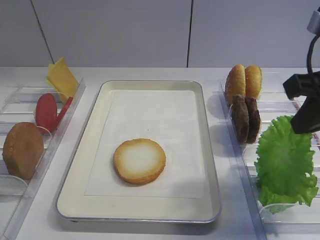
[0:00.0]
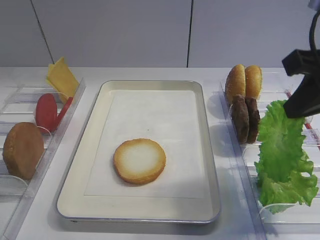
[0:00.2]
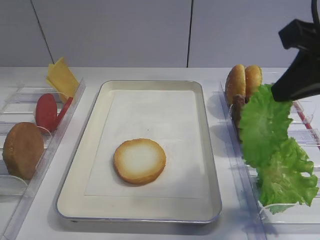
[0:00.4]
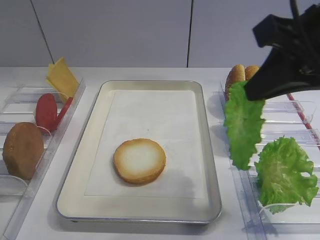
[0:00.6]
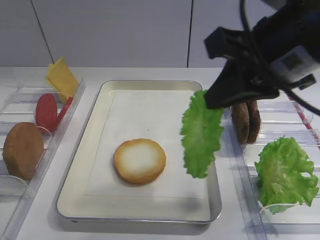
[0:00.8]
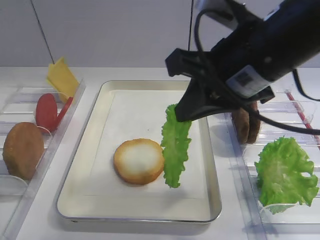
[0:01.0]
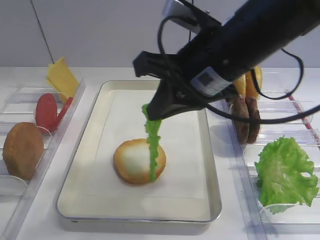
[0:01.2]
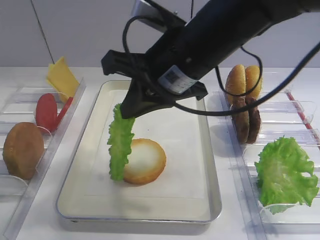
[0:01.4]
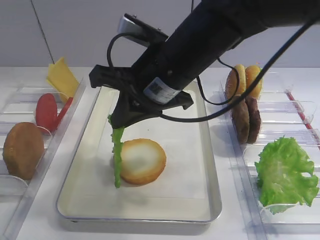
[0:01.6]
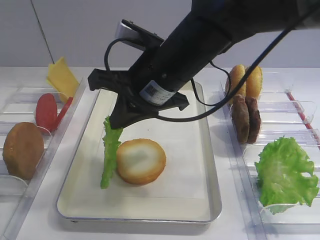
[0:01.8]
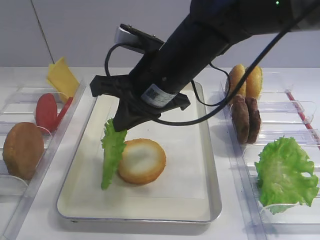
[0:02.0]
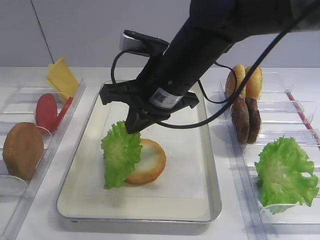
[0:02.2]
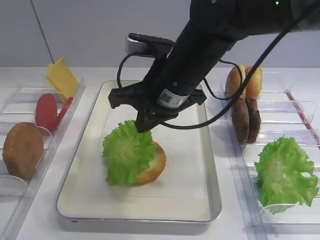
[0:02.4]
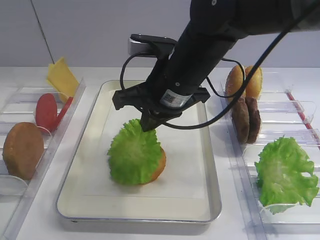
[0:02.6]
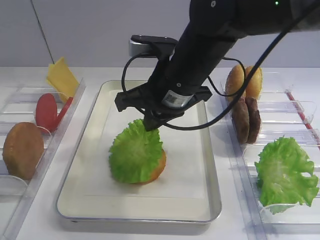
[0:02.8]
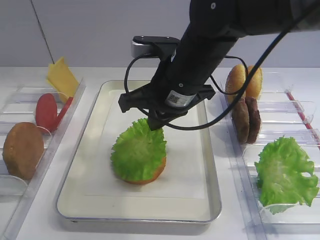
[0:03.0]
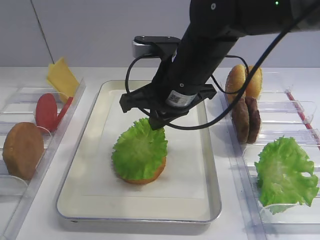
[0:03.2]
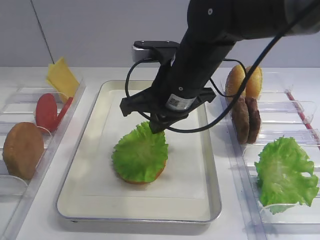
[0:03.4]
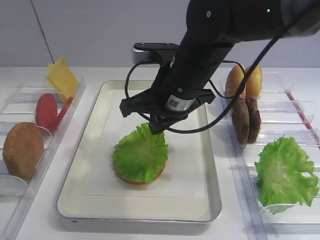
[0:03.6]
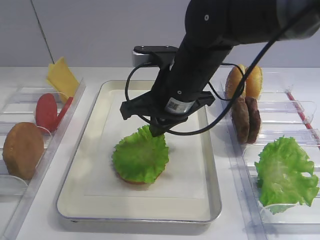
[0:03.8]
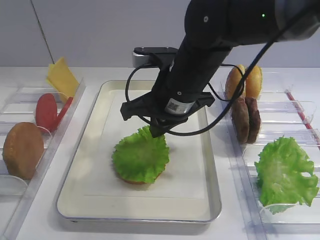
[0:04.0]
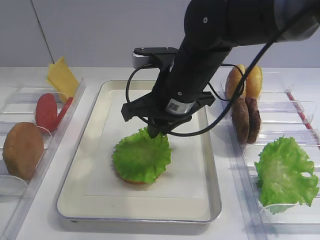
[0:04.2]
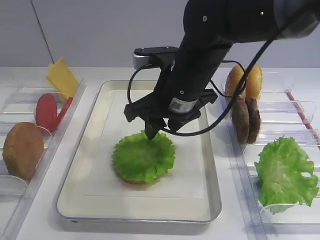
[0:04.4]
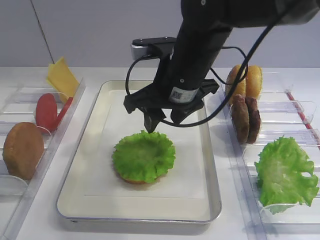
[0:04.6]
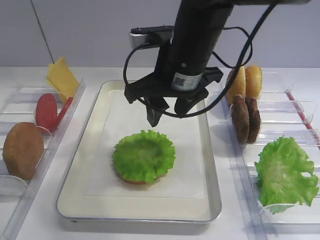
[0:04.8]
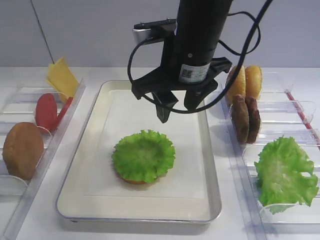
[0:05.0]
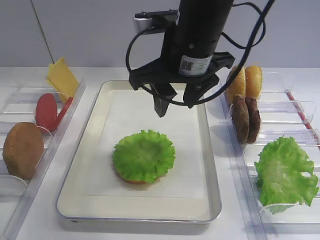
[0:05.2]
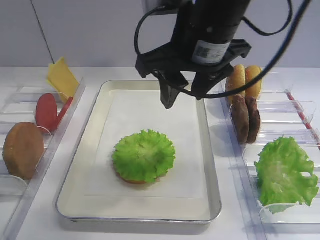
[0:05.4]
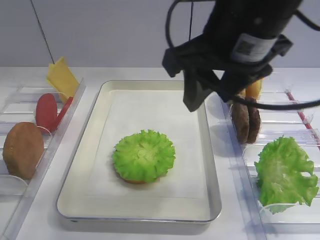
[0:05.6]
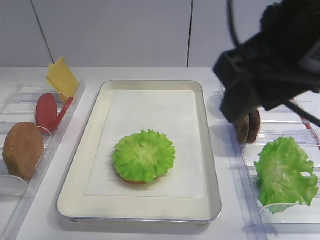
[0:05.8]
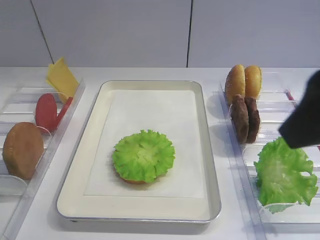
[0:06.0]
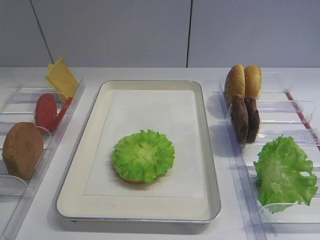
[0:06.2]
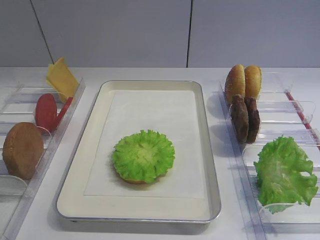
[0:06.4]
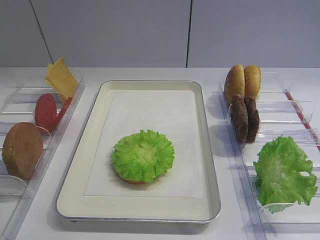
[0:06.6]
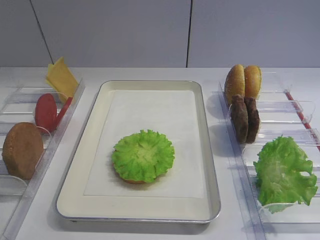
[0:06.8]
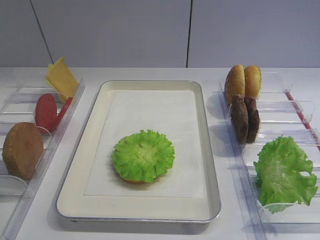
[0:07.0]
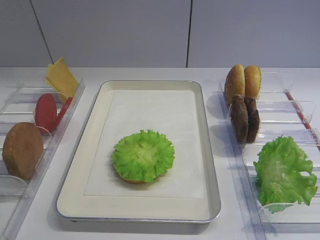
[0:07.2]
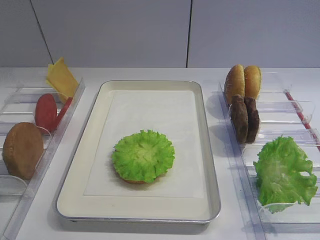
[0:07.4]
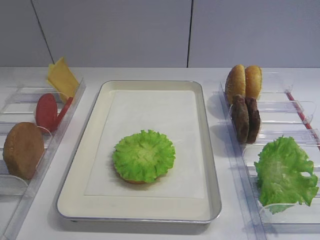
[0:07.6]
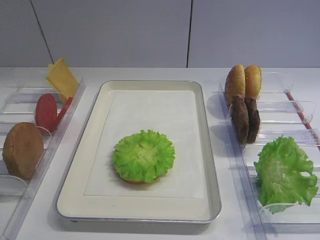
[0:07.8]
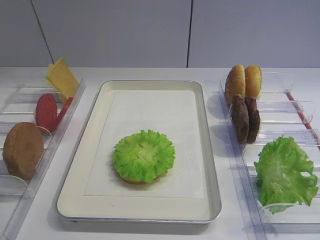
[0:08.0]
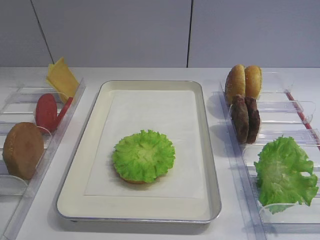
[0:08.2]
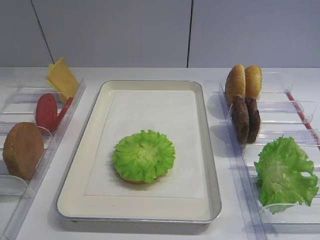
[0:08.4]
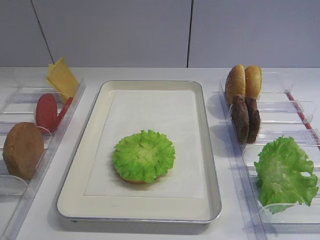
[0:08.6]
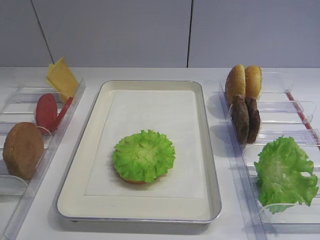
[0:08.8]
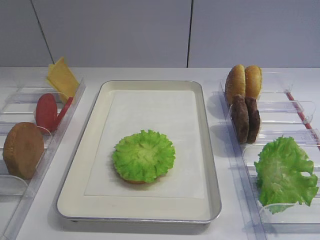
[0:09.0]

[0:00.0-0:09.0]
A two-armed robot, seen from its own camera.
Step, 0:00.0 to 0:04.4: Place the lettuce leaf on the bread slice with the right gripper.
0:00.0 to 0:01.6: The right gripper travels to the left by some 20 cm.
0:03.0 to 0:04.4: The right gripper opens up.
0:04.4 to 0:06.0: The right gripper travels backward, upward and to the right by roughly 25 cm.
0:06.0 to 0:07.6: The right gripper travels backward, to the right and downward by roughly 20 cm.
0:07.6 to 0:09.0: Neither gripper changes place.

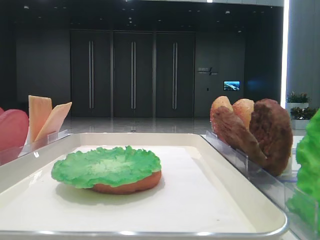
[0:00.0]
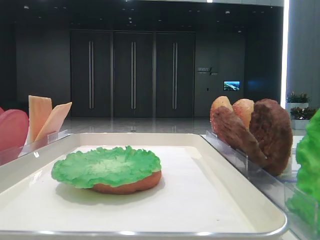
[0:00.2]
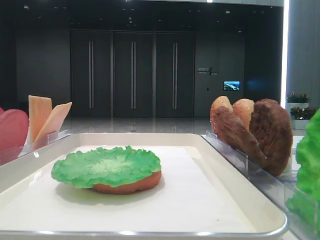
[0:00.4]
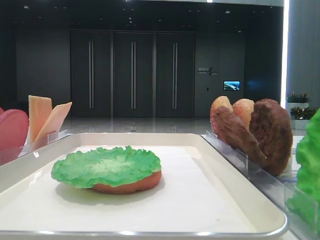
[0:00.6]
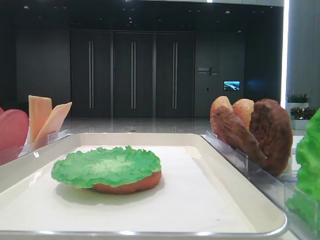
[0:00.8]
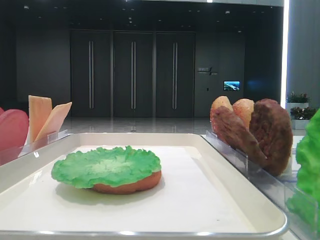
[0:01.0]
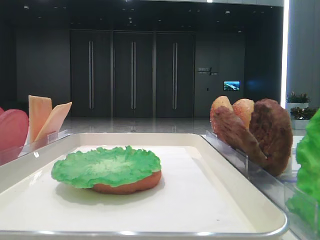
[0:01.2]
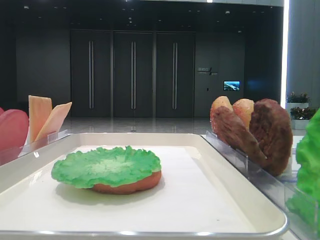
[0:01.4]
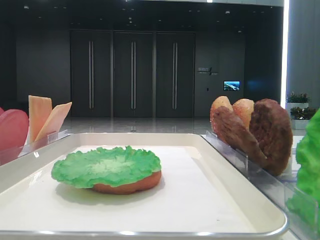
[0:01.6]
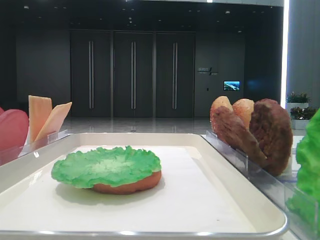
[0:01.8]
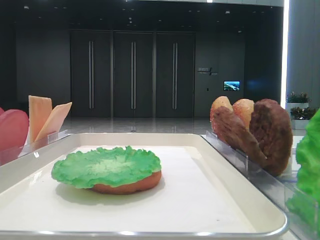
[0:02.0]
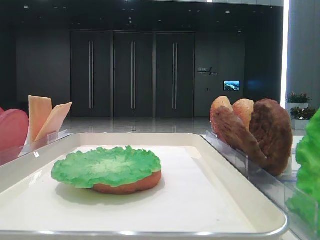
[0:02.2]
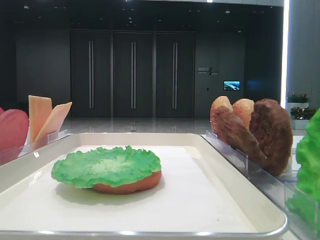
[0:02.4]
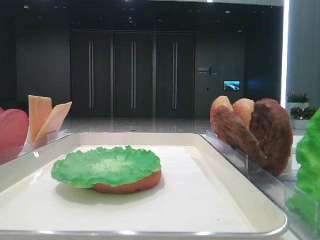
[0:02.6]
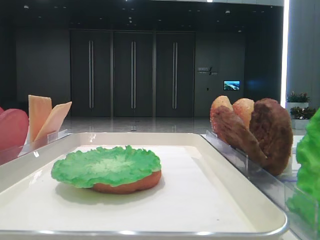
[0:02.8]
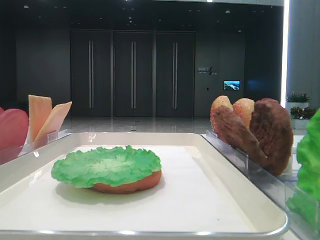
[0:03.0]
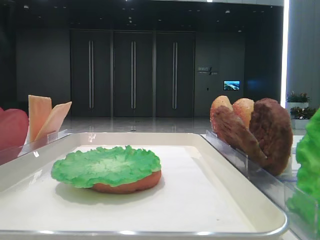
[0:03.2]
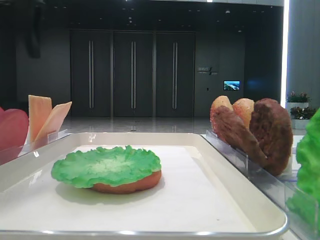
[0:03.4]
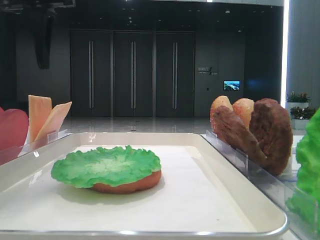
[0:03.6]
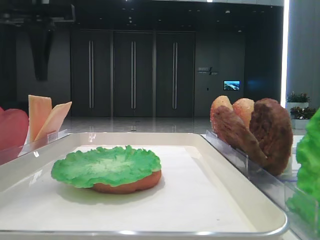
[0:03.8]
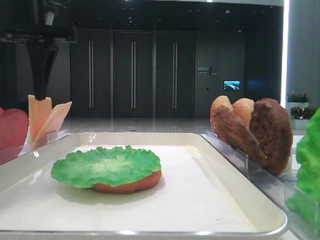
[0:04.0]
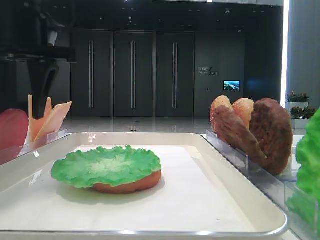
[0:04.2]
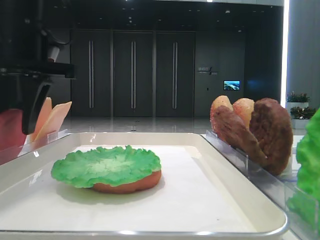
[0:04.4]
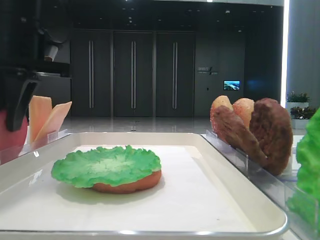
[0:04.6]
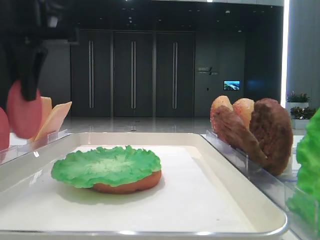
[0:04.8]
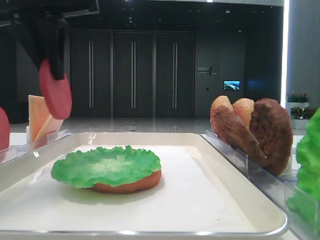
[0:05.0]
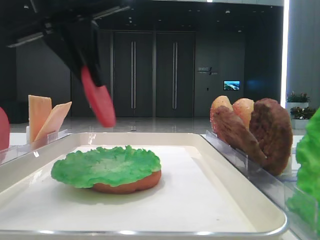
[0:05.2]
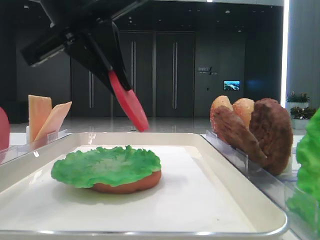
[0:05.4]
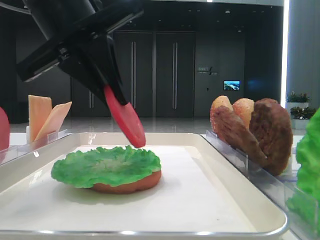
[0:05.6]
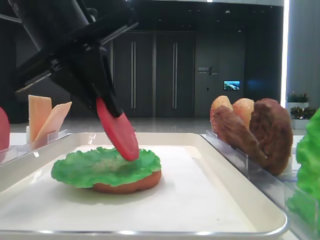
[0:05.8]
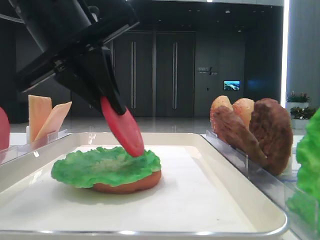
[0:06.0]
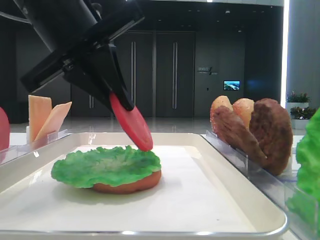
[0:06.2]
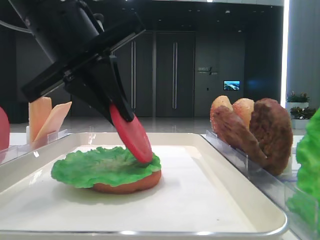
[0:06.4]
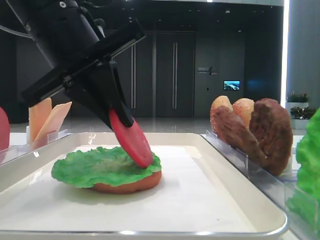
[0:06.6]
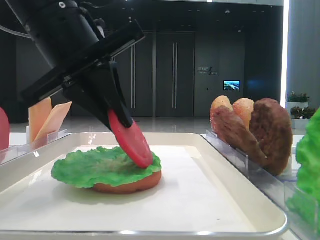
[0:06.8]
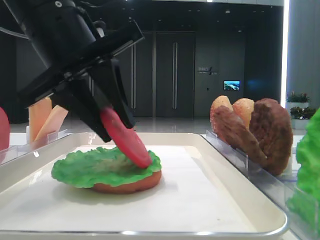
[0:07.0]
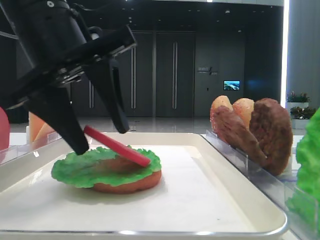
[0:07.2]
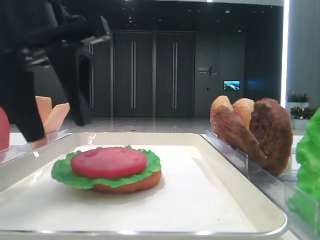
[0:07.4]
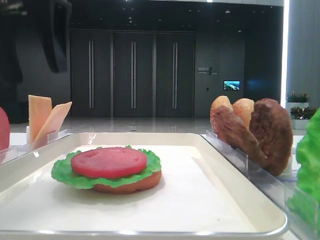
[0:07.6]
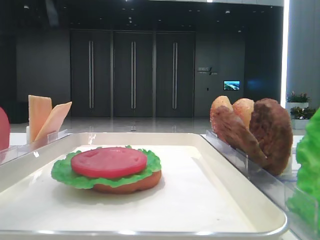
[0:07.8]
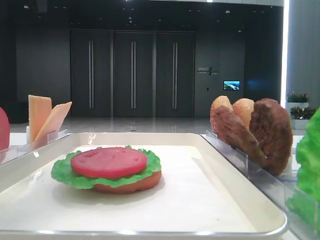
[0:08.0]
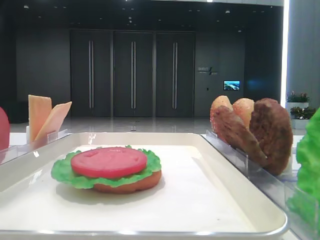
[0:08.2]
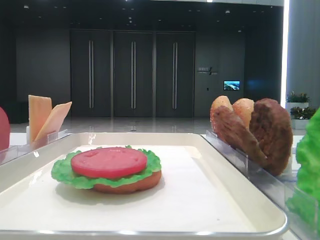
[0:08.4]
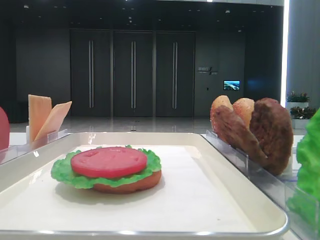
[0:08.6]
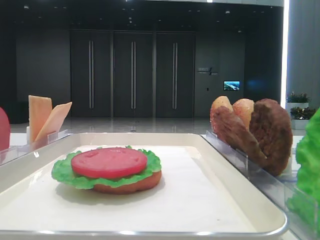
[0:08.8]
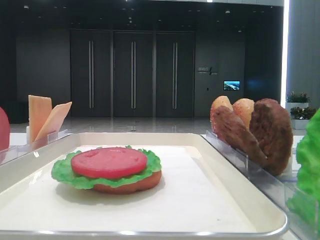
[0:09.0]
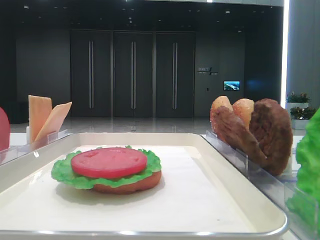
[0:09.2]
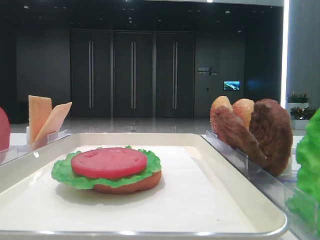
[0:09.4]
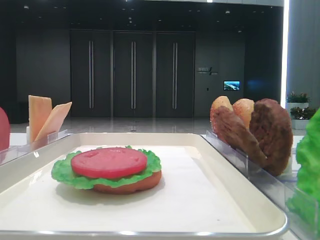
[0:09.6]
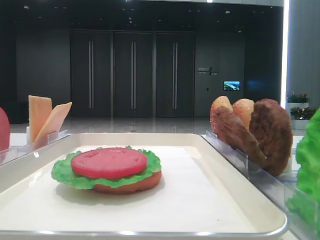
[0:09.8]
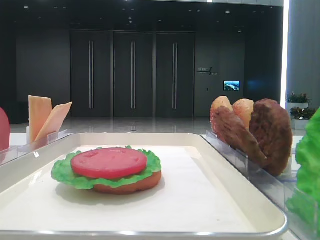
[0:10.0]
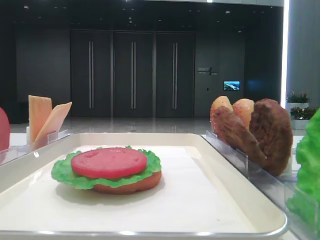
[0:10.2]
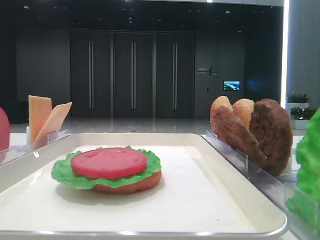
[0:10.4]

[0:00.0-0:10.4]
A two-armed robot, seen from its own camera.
Step, 0:00.0 to 0:04.6: Pick up the tomato slice with the left hand.
Step, 0:04.8 to 0:07.2: Place the tomato slice on the lettuce leaf with the left hand.
0:03.0 to 0:04.4: The left gripper goes some 15 cm to the right and downward, and closes up.
0:04.4 to 0:06.0: The left gripper travels to the right and backward by approximately 10 cm, and closes up.
0:06.0 to 0:07.4: The left gripper opens its fingers.
0:07.4 to 0:09.0: The left gripper moves to the left and backward, some 25 cm.

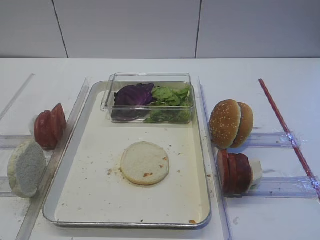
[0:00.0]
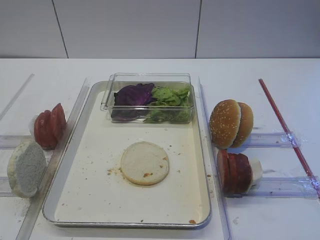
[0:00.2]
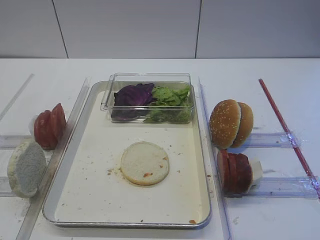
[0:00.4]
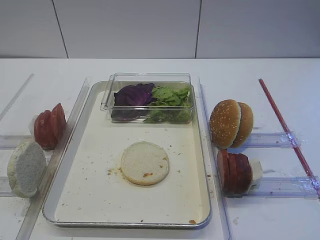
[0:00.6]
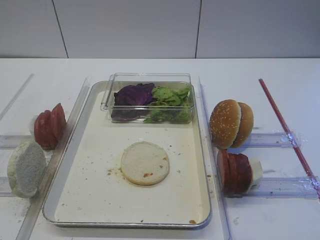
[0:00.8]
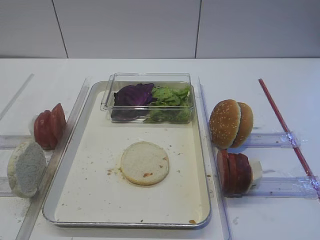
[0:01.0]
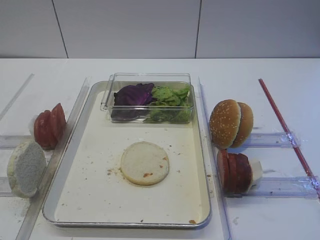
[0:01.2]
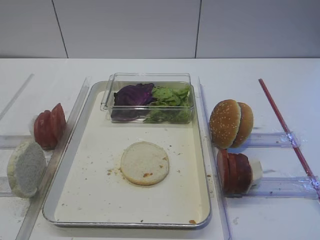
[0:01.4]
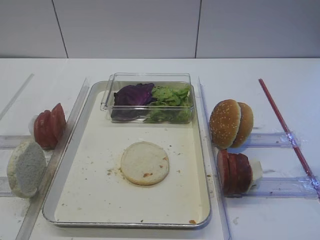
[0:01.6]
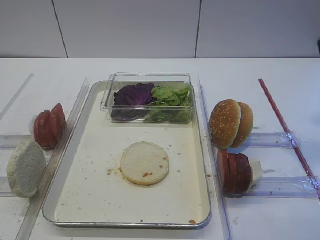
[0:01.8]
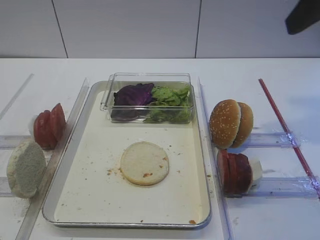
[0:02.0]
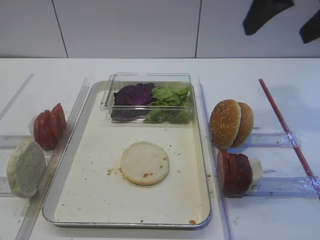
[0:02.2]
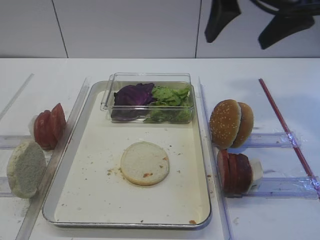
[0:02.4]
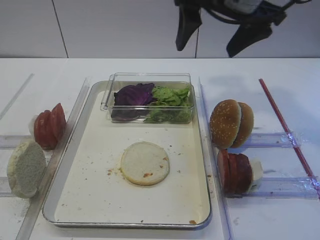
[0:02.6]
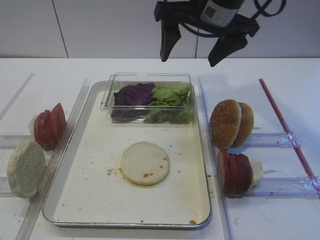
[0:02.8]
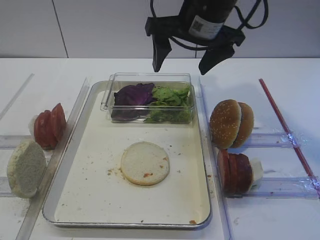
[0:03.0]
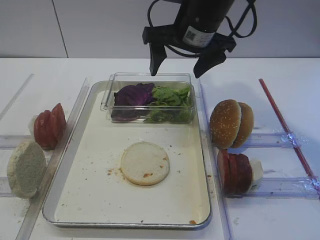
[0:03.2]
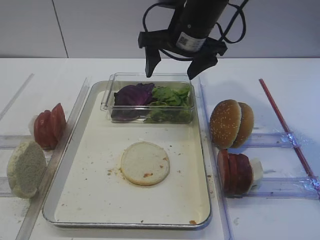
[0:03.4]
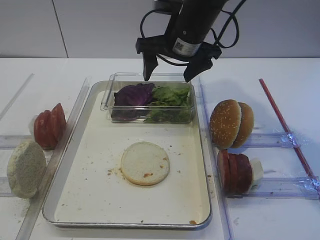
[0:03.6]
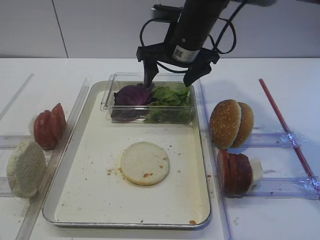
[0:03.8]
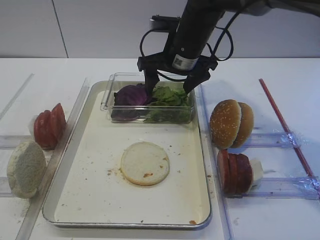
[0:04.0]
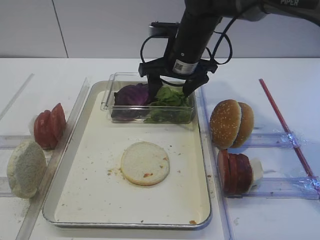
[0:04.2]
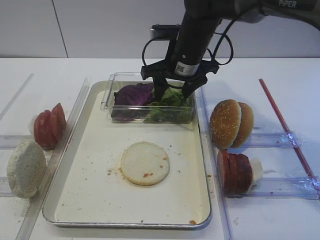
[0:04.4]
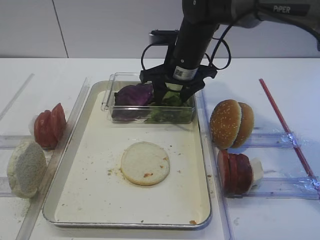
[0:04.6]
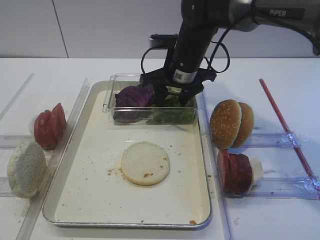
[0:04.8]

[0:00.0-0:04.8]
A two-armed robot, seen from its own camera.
0:01.6 to 0:03.2: The right gripper moves forward and to the left, approximately 30 cm.
0:03.2 to 0:04.8: The right gripper travels downward by about 10 cm.
